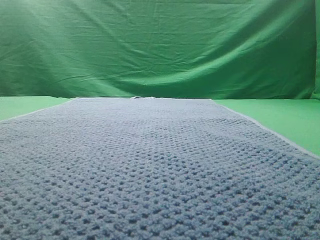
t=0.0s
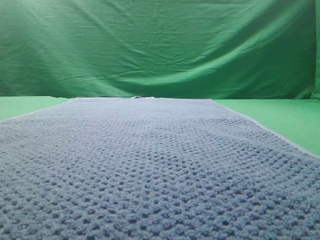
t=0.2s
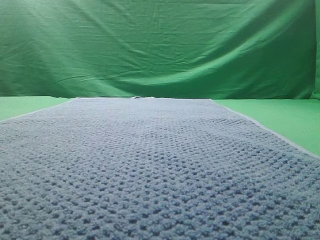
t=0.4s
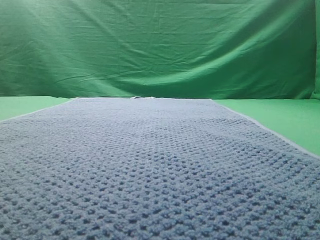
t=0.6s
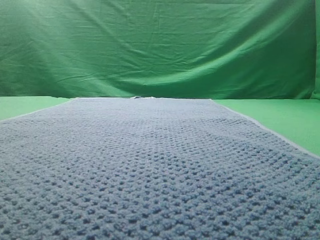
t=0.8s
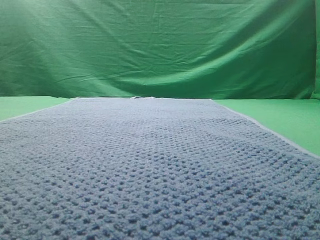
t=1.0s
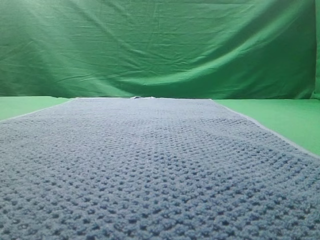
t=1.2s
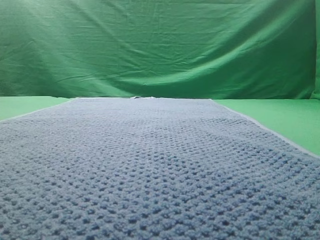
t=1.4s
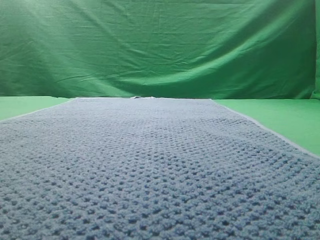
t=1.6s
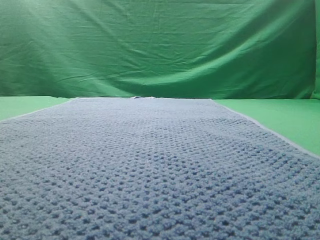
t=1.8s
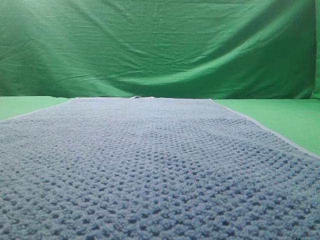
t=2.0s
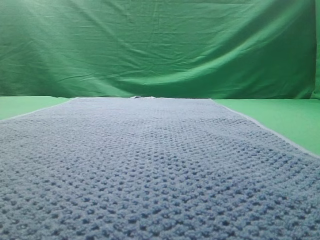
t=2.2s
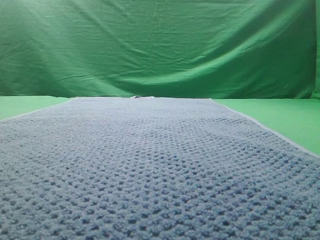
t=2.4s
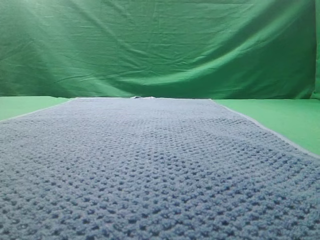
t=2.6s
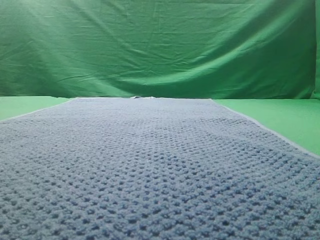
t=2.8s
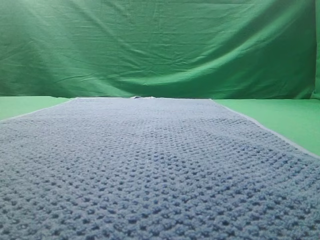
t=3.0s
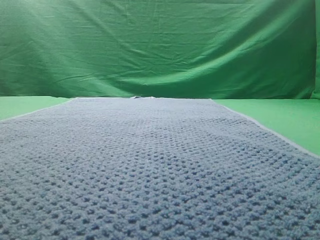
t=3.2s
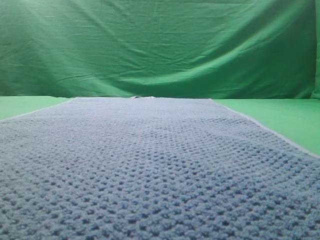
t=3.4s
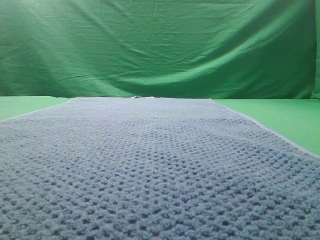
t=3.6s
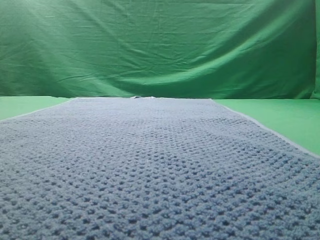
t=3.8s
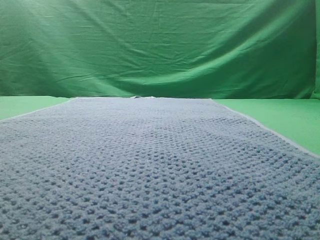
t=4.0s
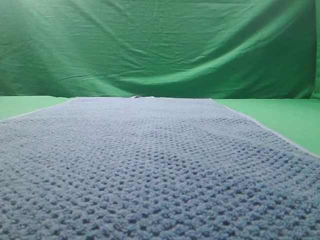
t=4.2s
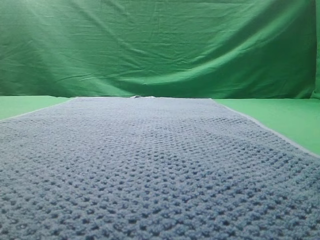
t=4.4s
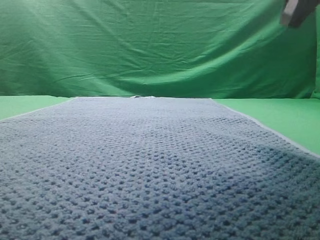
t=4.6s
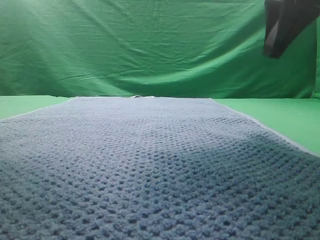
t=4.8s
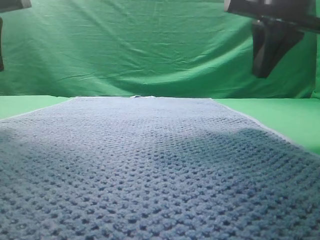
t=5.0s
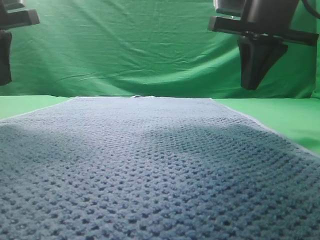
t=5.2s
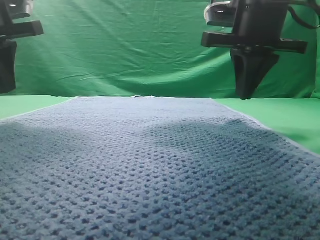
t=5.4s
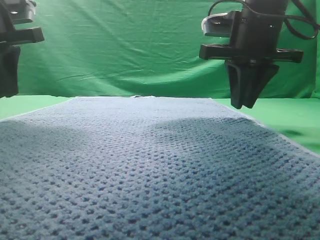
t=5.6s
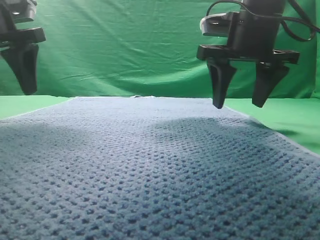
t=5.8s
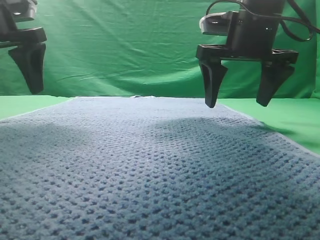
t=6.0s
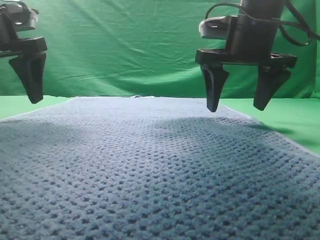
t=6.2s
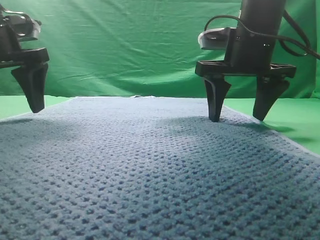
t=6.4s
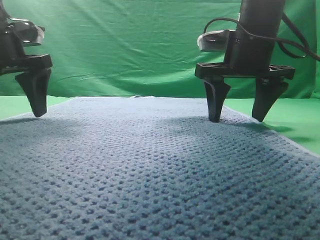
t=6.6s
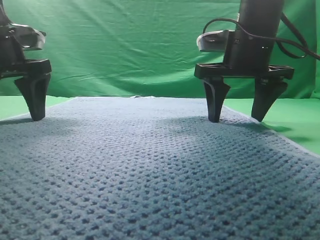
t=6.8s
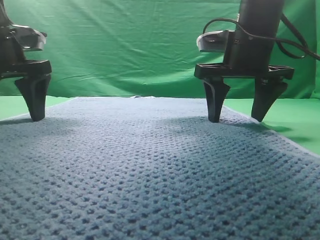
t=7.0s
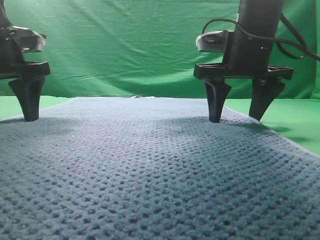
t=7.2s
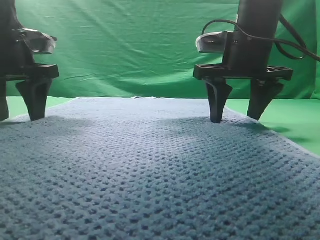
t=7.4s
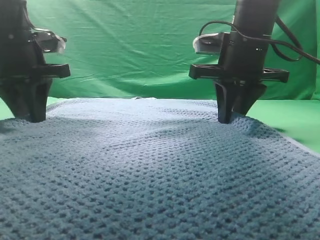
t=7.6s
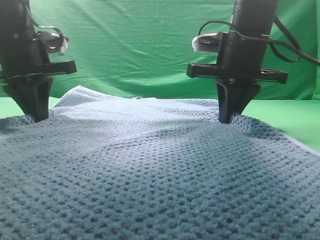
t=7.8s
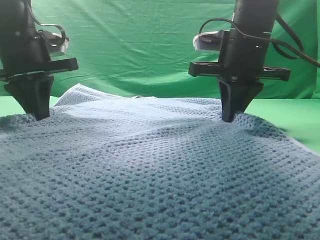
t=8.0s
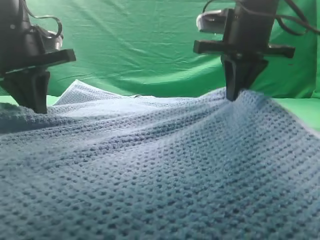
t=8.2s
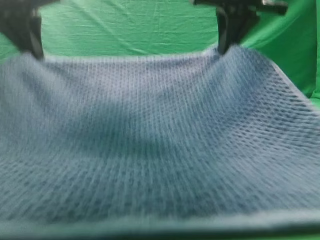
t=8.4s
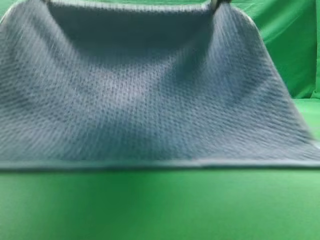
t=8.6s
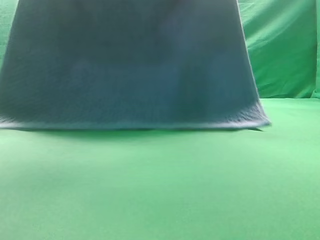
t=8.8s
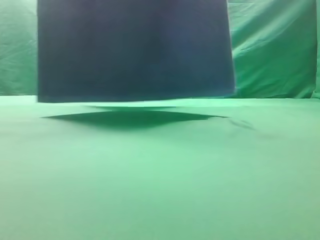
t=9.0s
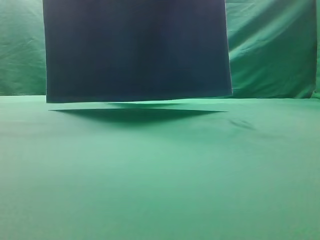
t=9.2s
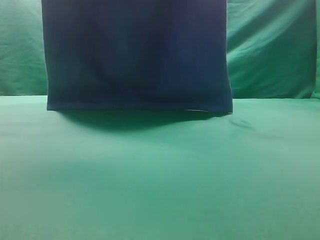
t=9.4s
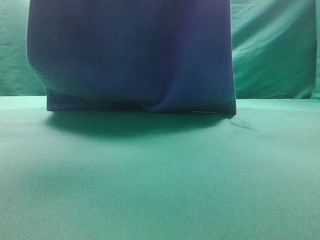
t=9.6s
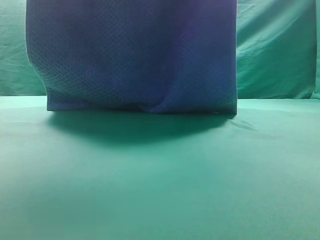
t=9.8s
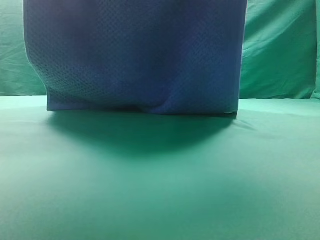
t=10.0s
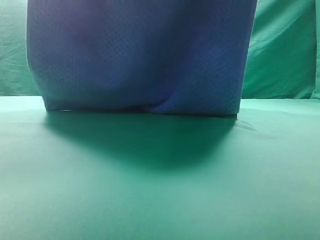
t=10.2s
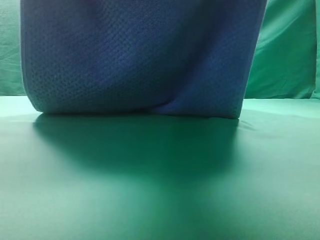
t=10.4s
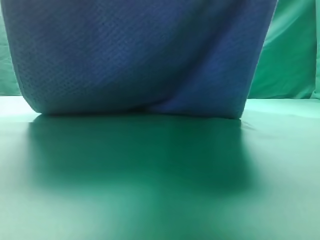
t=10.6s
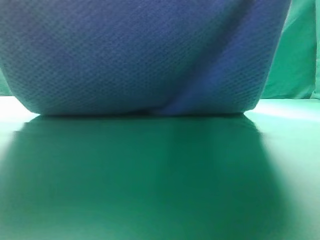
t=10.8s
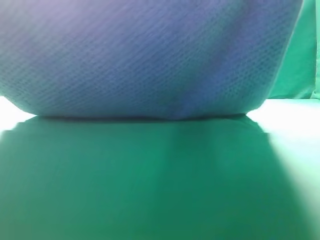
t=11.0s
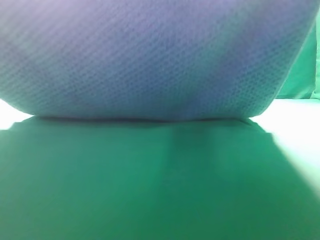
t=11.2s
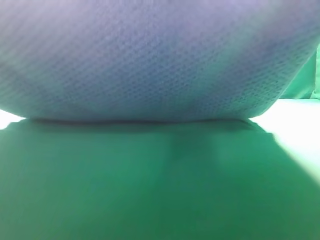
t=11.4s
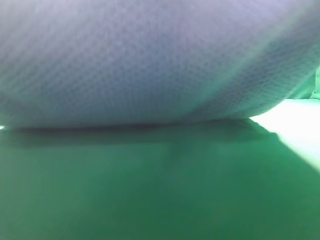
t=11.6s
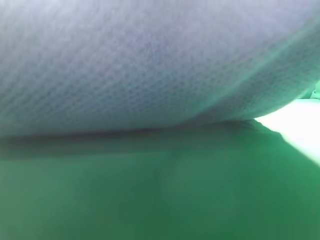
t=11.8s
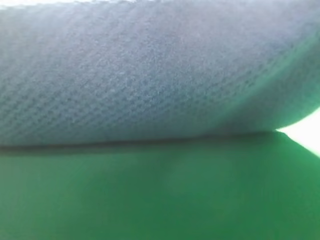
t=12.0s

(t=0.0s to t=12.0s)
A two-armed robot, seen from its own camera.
Task of the whole recording: fold the towel on the table twice.
Step, t=0.0s - t=8.8s: pick up the towel with two arm.

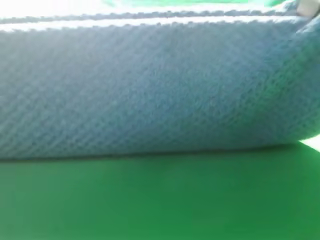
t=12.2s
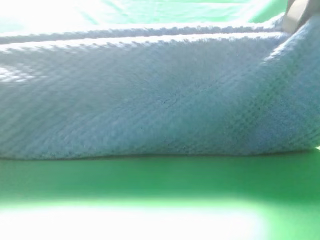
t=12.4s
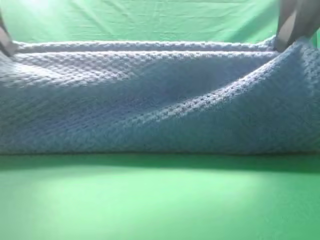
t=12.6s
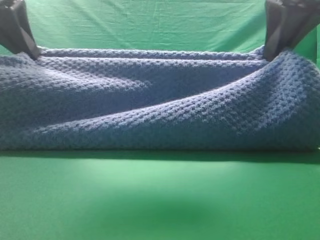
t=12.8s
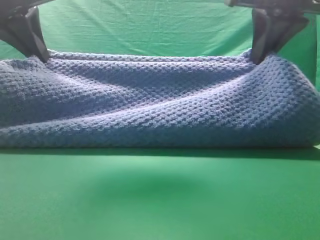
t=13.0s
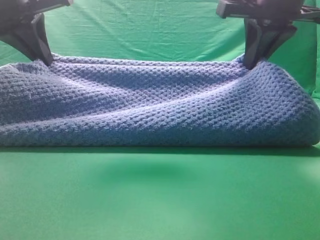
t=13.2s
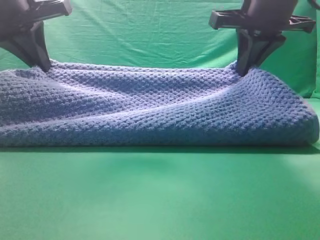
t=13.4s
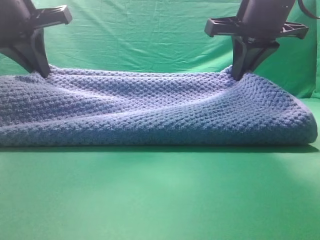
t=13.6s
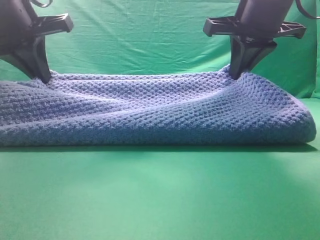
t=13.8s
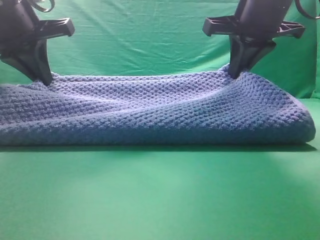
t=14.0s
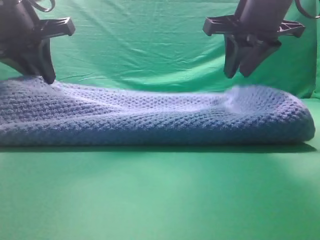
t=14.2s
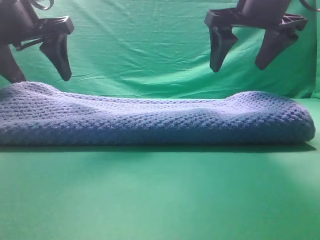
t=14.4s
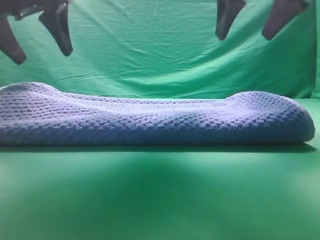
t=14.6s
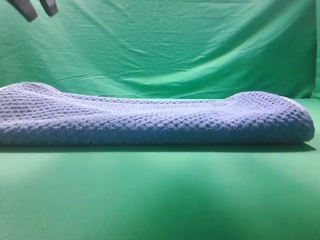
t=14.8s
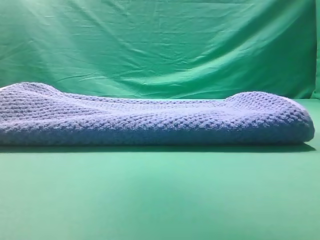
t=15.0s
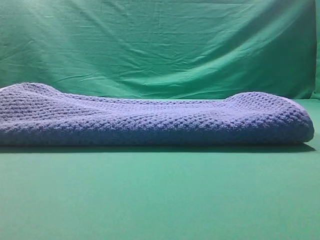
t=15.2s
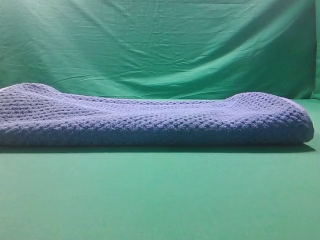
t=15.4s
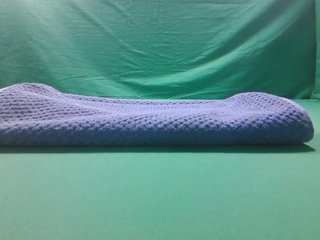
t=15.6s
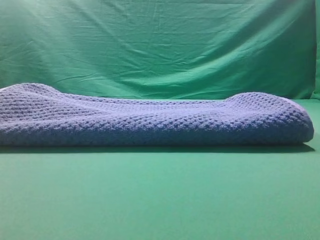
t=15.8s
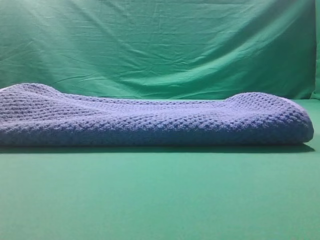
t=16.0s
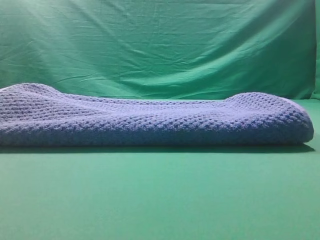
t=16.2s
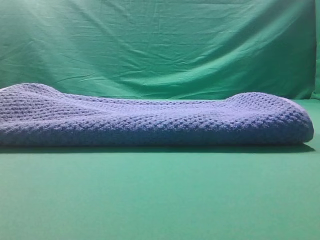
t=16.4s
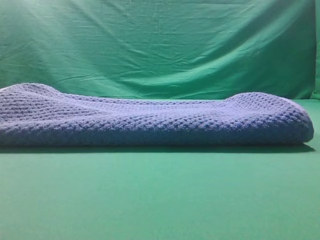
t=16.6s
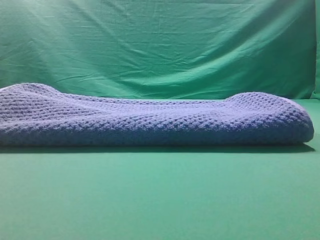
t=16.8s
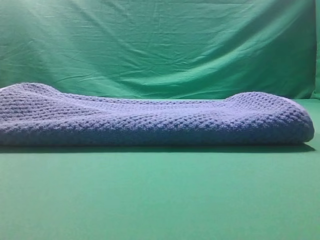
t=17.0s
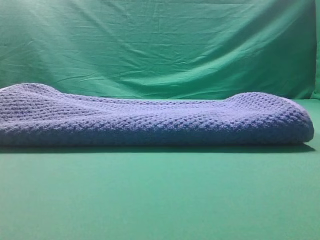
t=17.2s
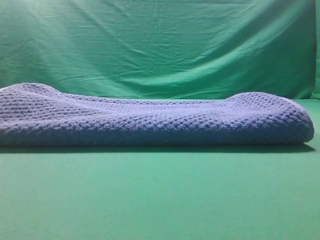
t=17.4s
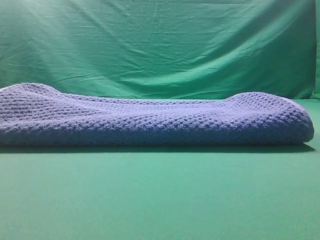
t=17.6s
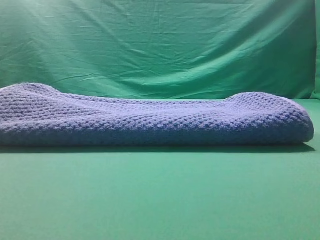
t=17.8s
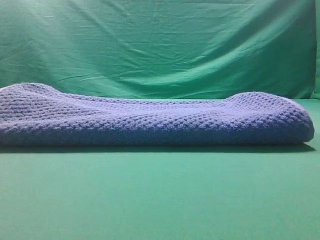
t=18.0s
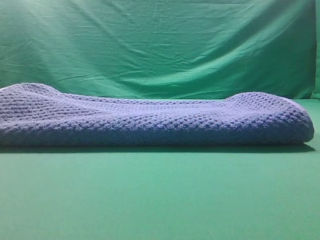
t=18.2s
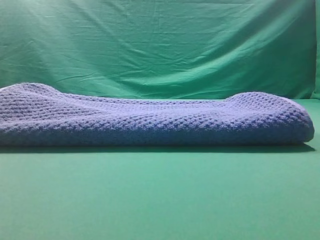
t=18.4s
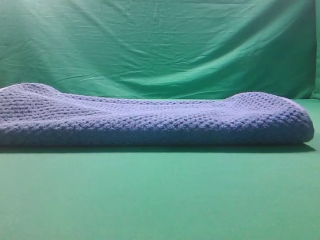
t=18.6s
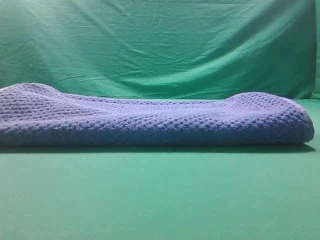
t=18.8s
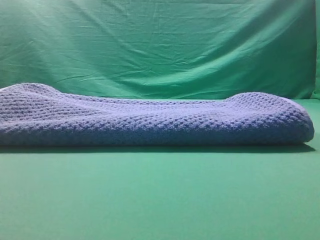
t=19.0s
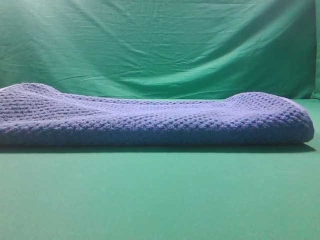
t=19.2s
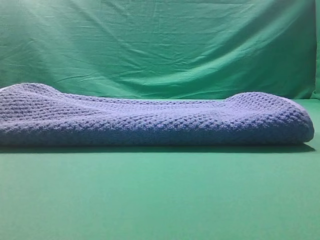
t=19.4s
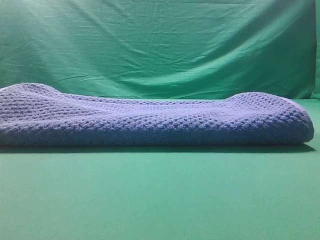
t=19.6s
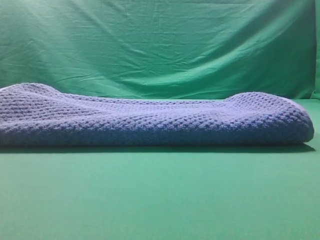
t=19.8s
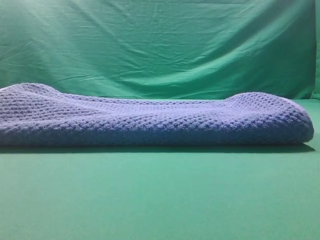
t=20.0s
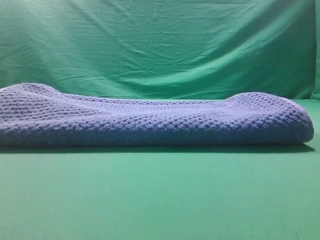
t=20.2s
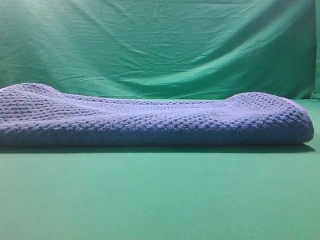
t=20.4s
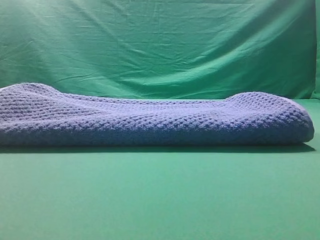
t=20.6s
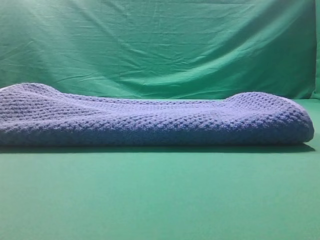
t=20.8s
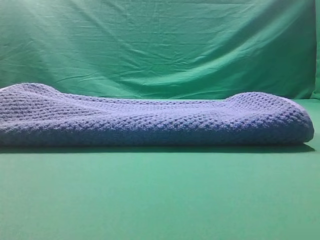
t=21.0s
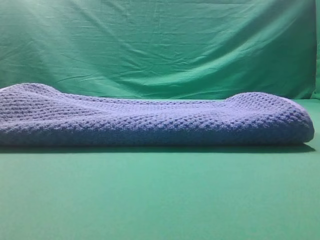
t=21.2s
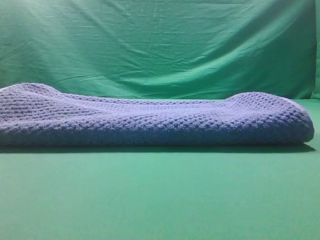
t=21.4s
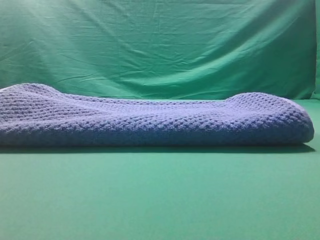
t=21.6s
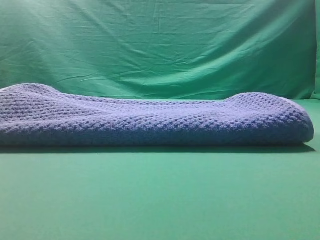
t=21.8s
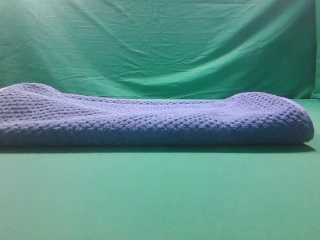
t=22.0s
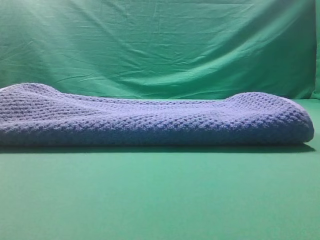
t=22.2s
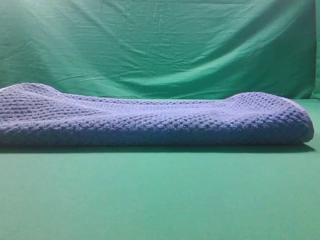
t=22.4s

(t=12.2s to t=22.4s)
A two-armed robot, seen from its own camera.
Task of the whole recording: fold the towel on the table twice.
Step, t=12.2s - t=14.4s: Fold the towel twice on the table.

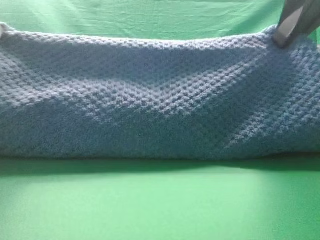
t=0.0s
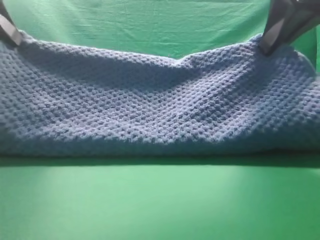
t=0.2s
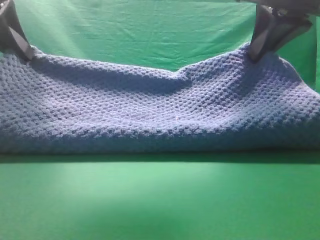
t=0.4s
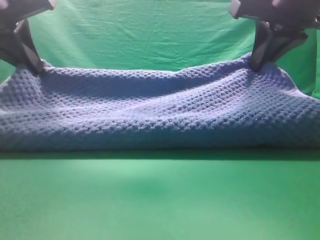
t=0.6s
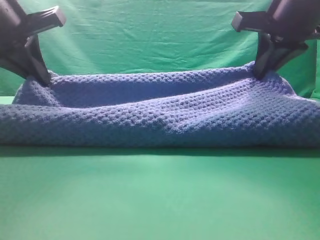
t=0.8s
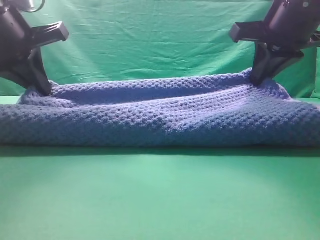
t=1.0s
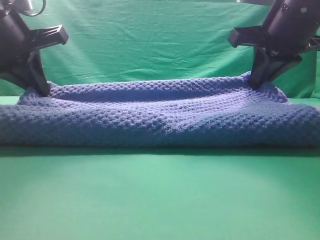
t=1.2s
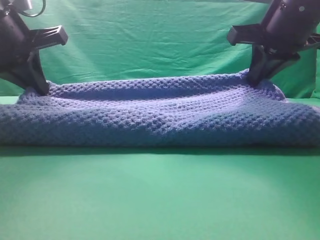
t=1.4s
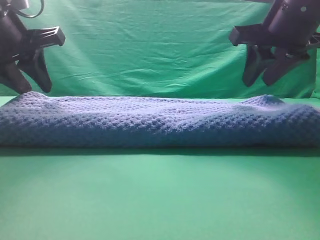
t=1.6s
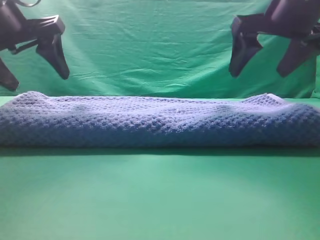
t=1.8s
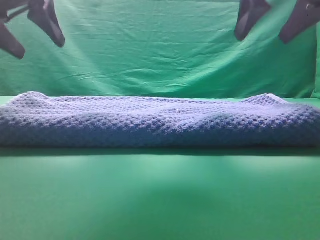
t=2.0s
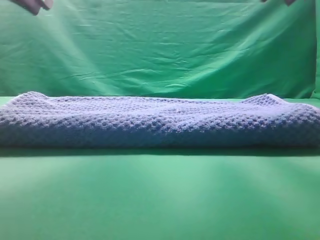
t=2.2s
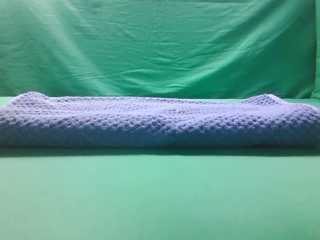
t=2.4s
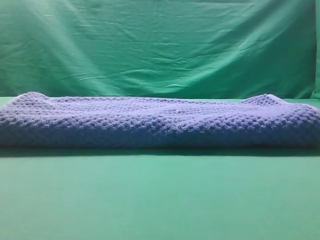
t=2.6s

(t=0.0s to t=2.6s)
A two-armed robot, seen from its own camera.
Task of the whole recording: fold the towel on the table twice.
Step, t=0.0s - t=2.0s: Fold the towel twice on the table.
